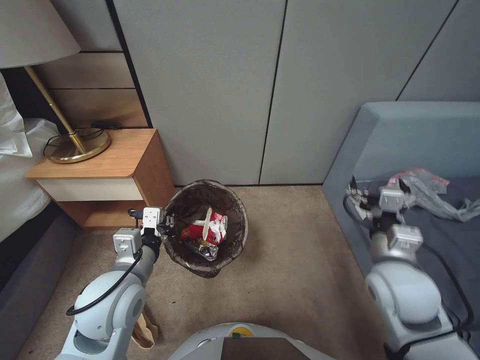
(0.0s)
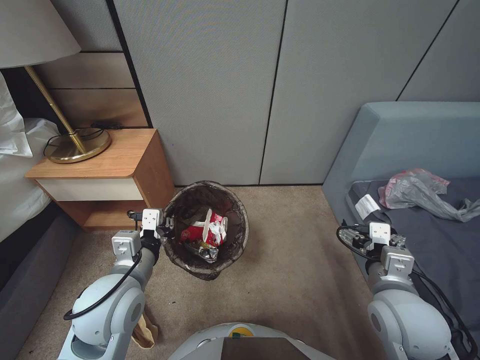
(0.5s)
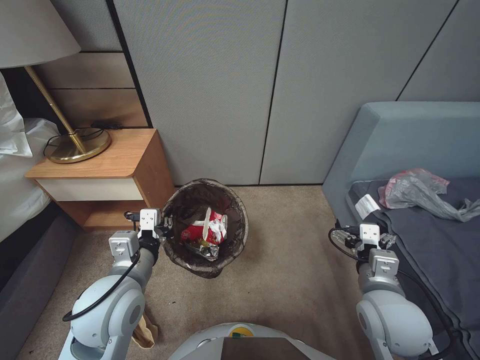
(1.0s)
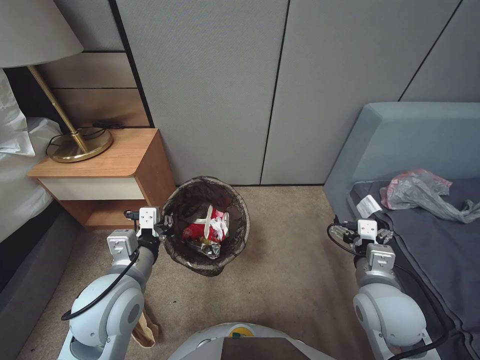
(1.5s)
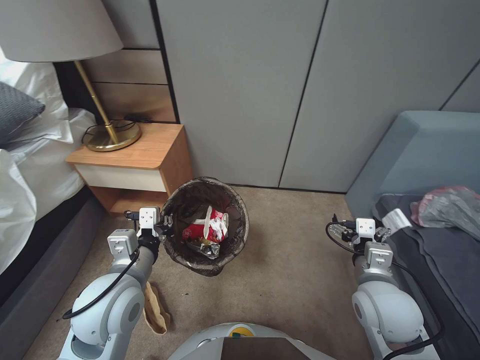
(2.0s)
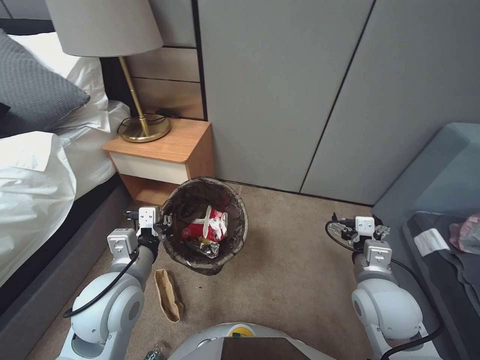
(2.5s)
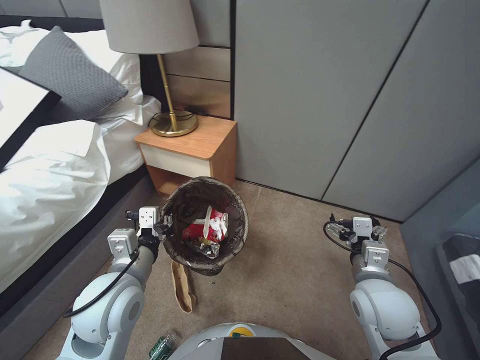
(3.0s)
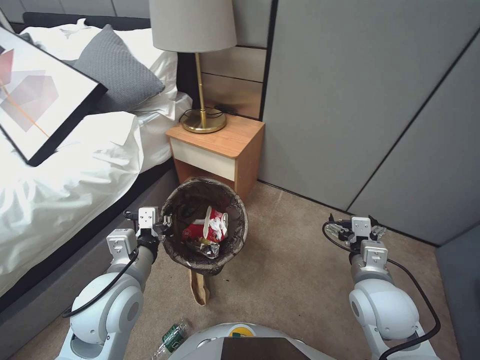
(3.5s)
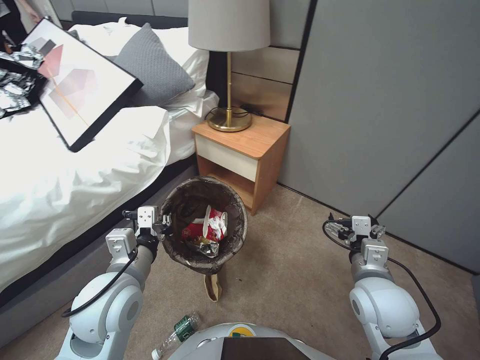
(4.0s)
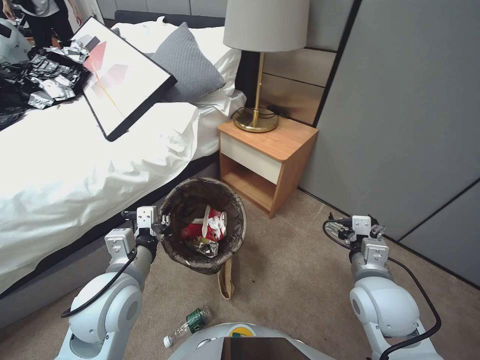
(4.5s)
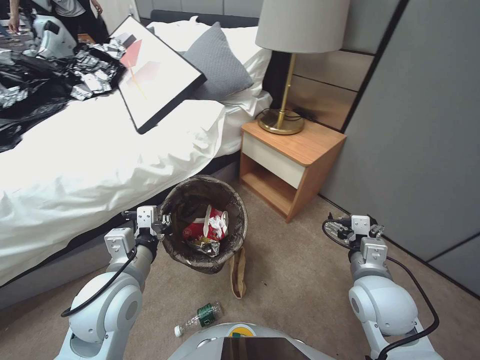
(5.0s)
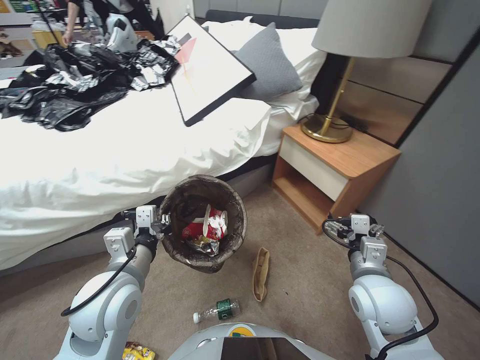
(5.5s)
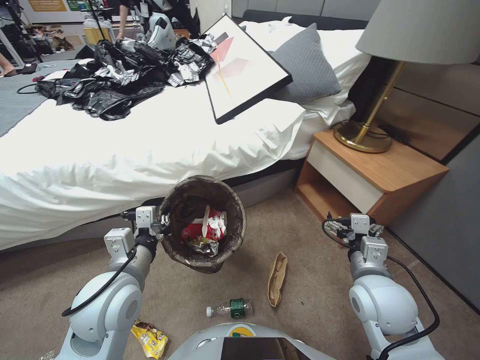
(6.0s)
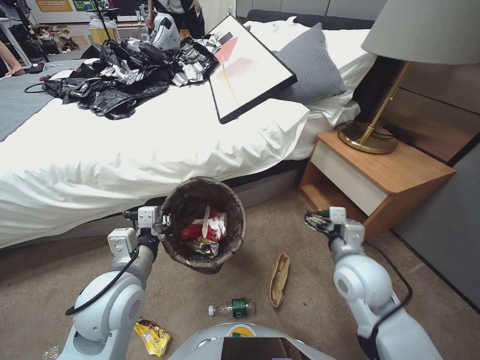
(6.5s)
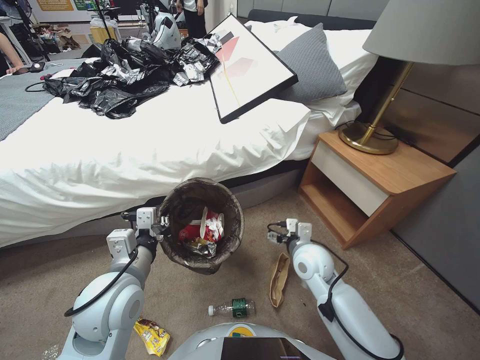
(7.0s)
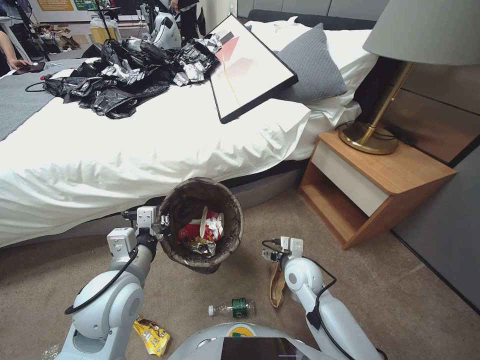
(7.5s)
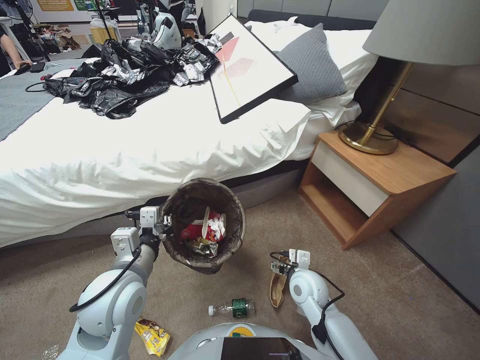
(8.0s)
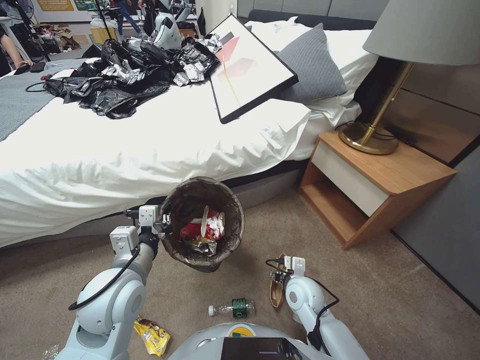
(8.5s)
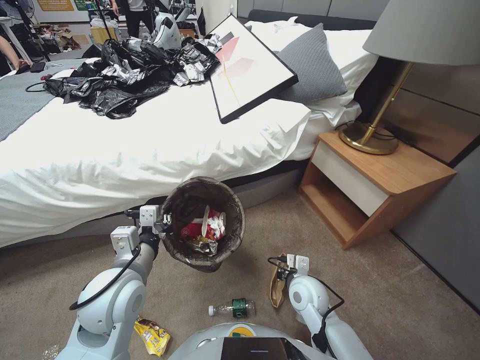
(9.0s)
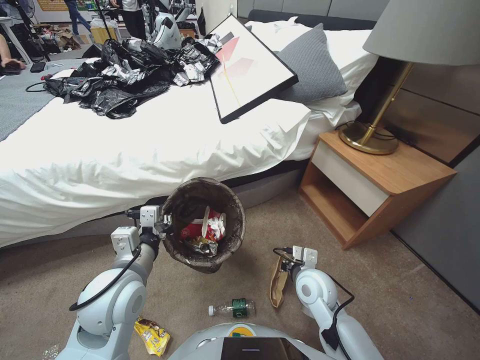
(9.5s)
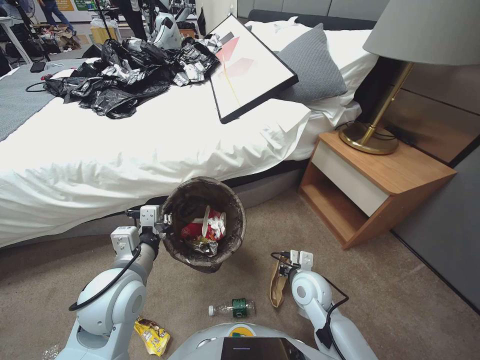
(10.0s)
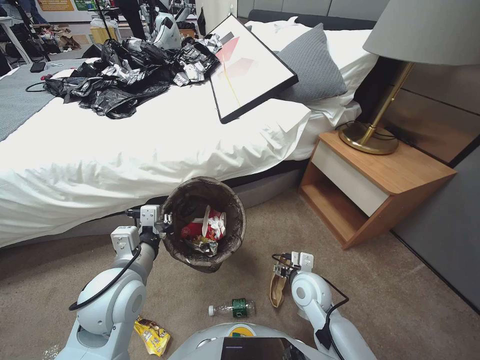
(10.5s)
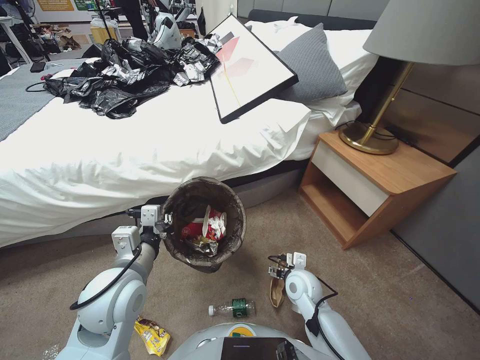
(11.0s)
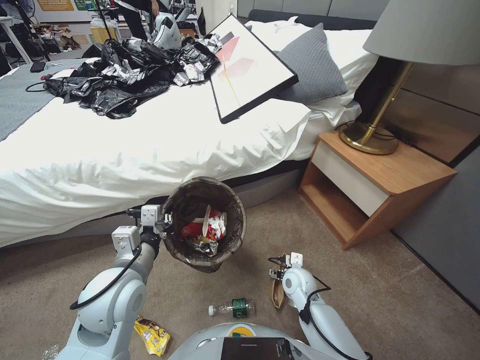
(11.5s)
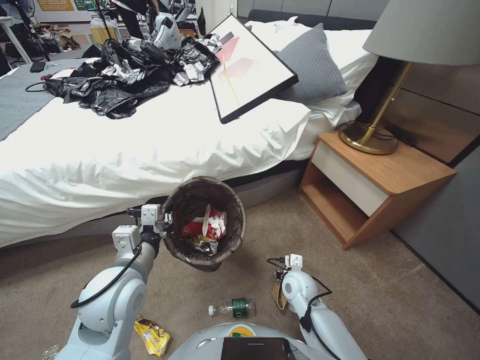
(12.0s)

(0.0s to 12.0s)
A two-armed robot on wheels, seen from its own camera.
Task of the whole recording: Pick up the trash bin, then pick up the garbage from the floor and place it into the trash bin.
0.0s - 2.0s: The right gripper shifts about 10 cm downward and backward.
6.0s - 8.0s: The right gripper travels downward, to the left and forward by roughly 20 cm.
8.0s - 10.0s: The right gripper closes its fingers.
10.0s - 12.0s: The right gripper travels downward by about 5 cm, and opens up.

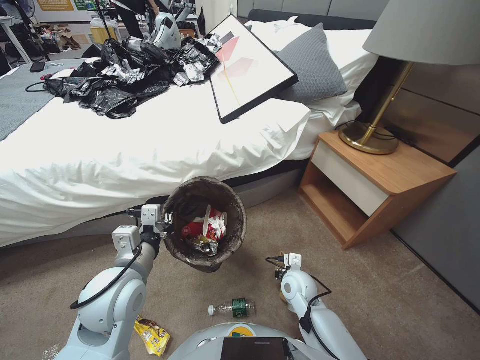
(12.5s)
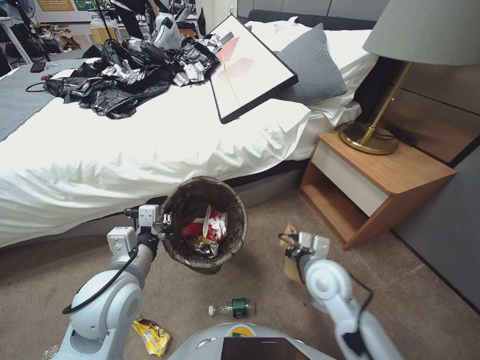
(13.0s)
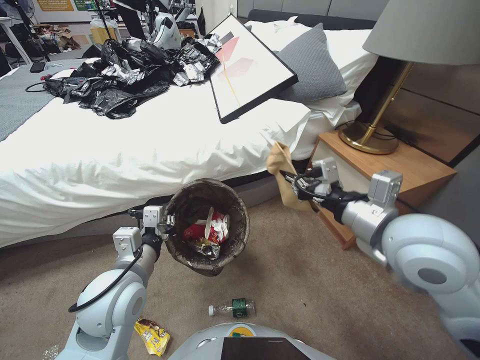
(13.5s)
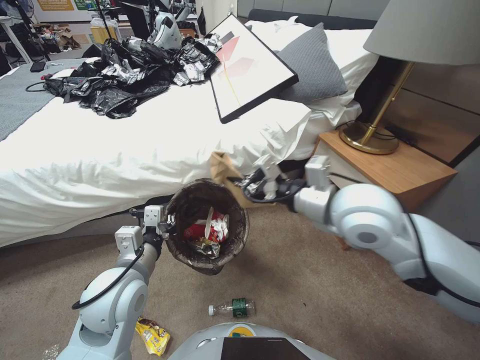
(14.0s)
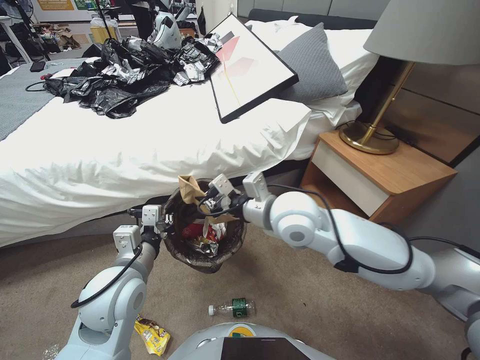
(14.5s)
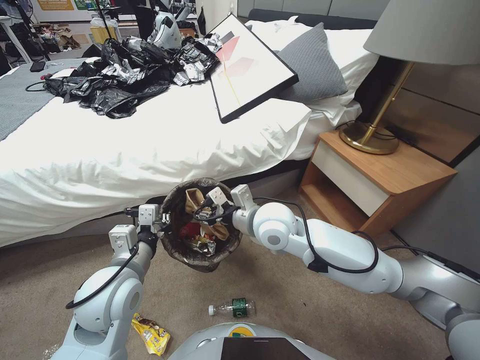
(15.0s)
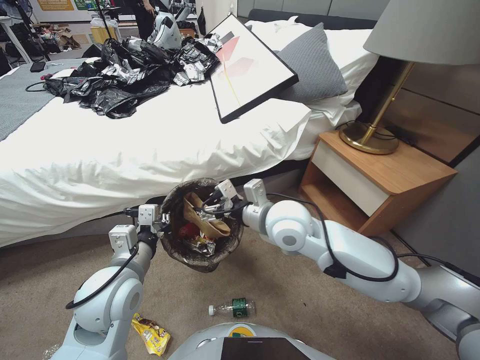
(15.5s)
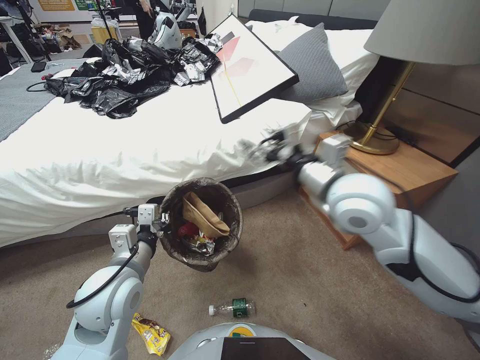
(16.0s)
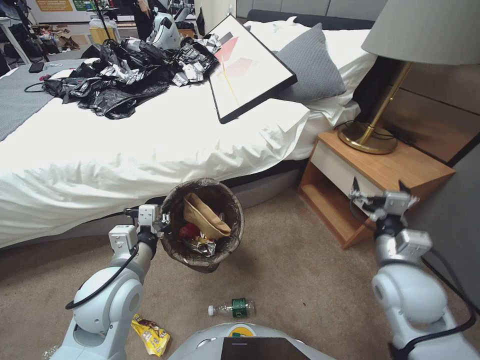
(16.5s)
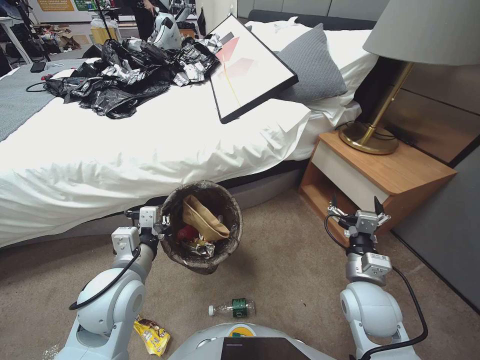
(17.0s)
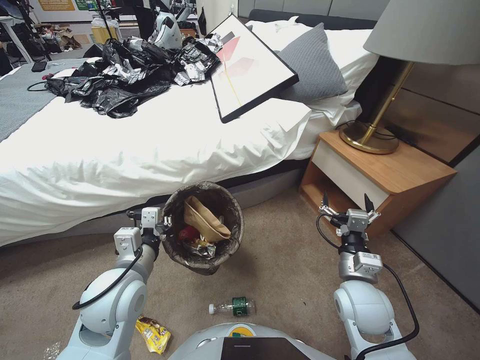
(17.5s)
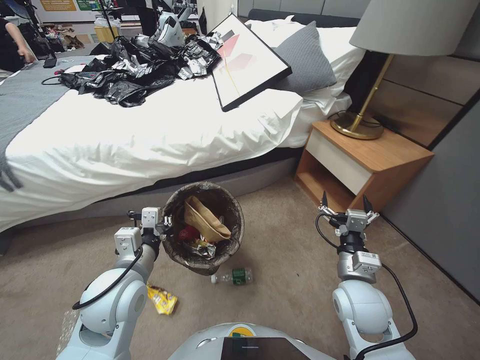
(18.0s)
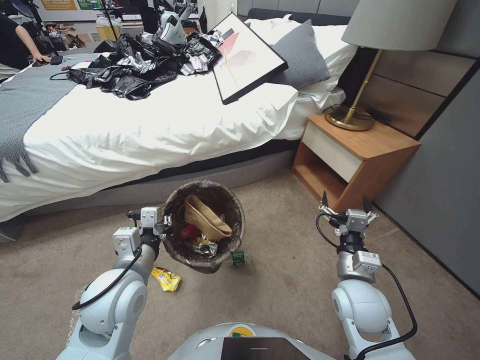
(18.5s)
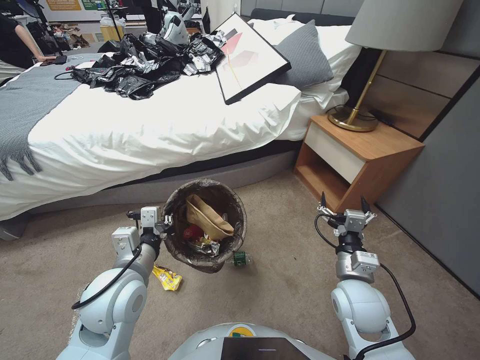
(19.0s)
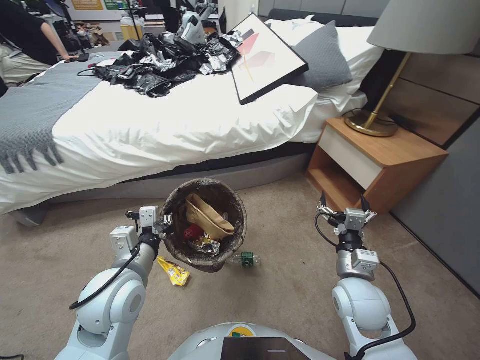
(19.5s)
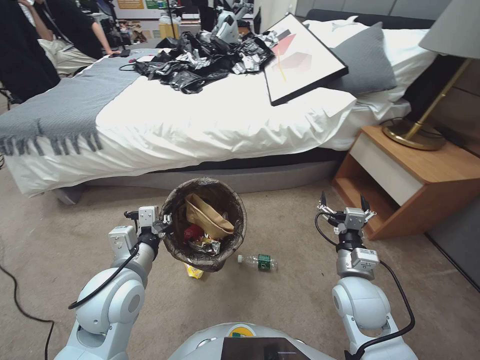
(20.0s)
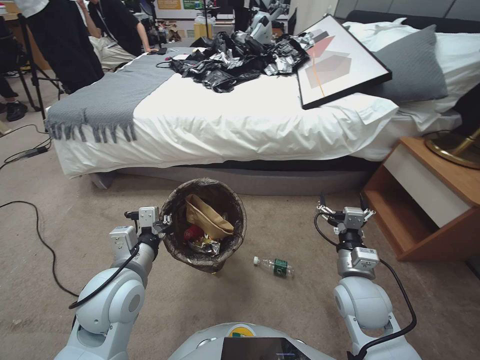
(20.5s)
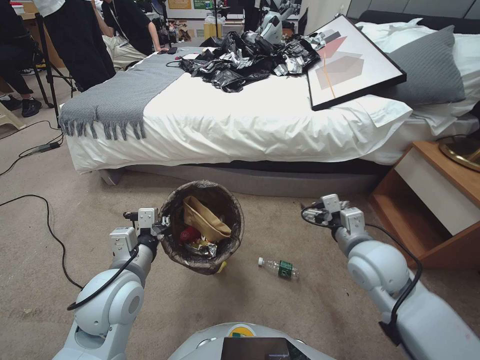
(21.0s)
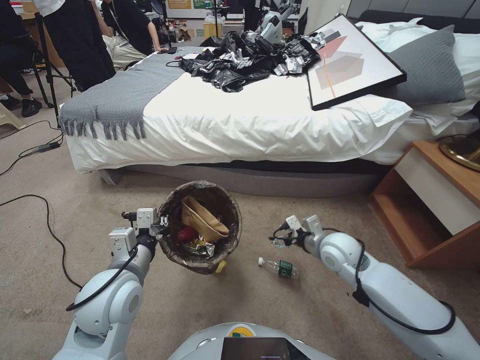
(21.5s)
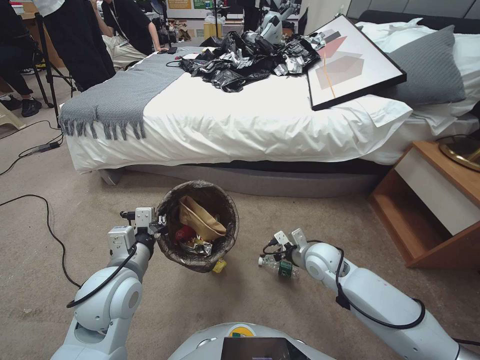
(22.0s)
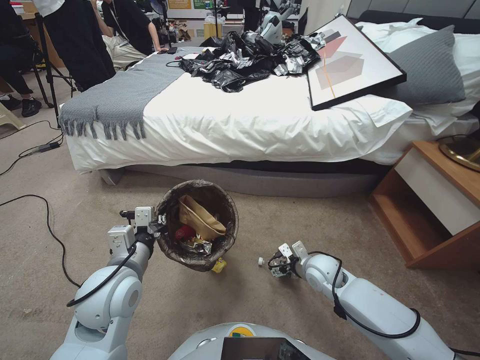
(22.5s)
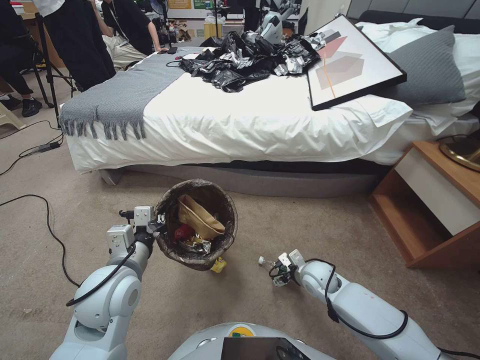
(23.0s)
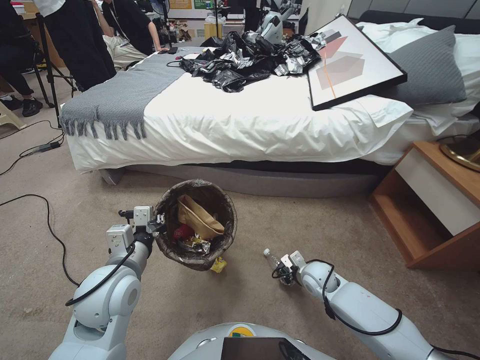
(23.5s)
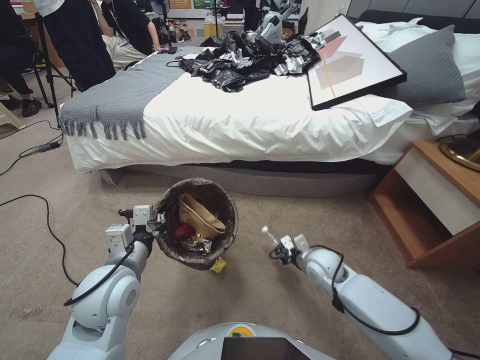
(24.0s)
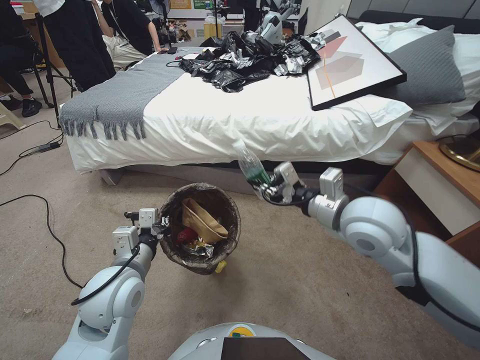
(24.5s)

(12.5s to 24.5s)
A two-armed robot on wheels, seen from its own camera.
Task of the whole recording: Pick up the trash bin, then pick up the garbage from the floor and place it into the trash bin.
12.5s - 14.5s: The right gripper shifts roughly 30 cm upward.
14.5s - 16.5s: The right gripper moves to the right, some 20 cm, and opens its fingers.
16.5s - 18.5s: The right gripper goes some 15 cm downward and to the left.
20.5s - 22.5s: The right gripper travels downward and forward by about 15 cm.
22.5s - 24.5s: The right gripper goes about 25 cm upward, and closes.

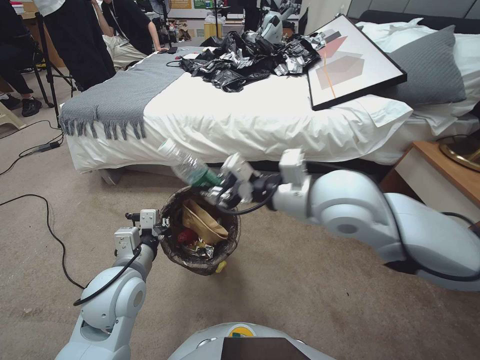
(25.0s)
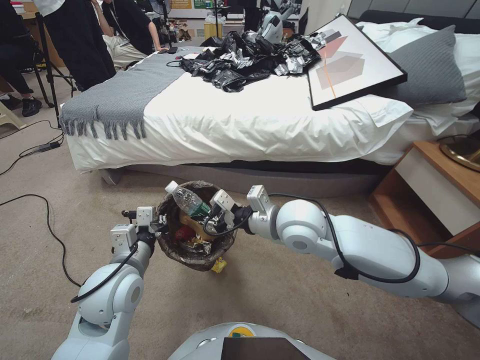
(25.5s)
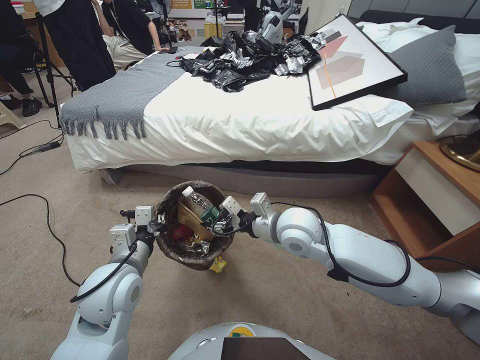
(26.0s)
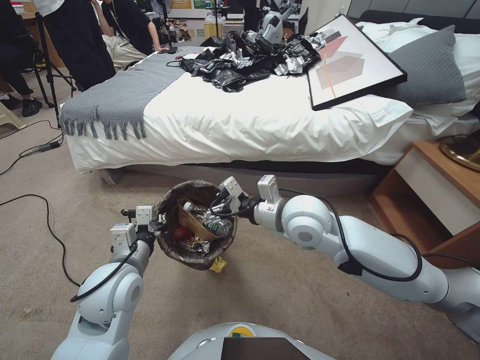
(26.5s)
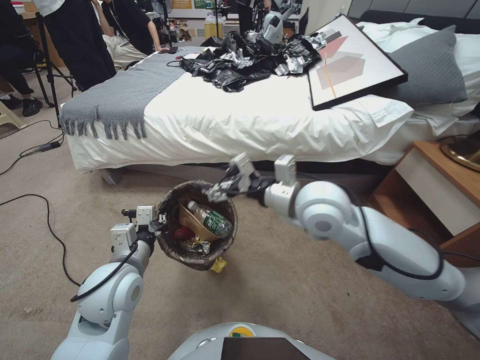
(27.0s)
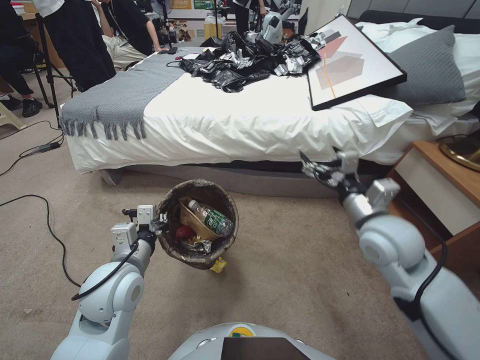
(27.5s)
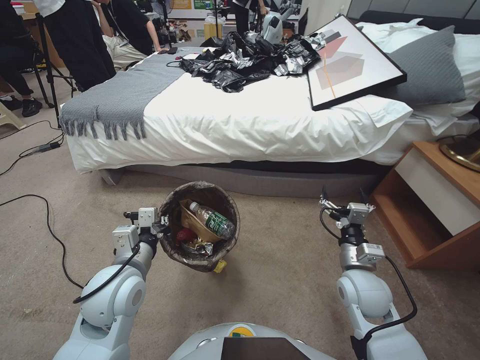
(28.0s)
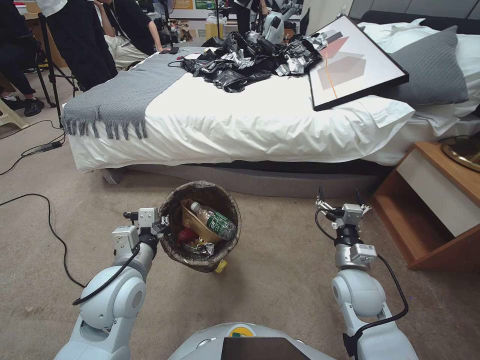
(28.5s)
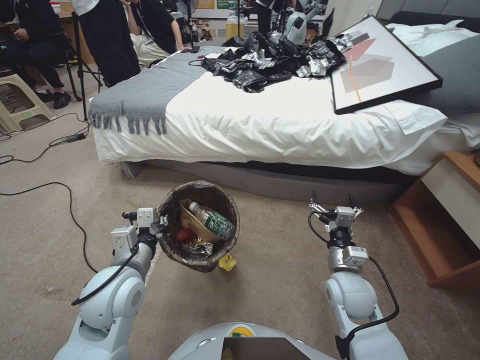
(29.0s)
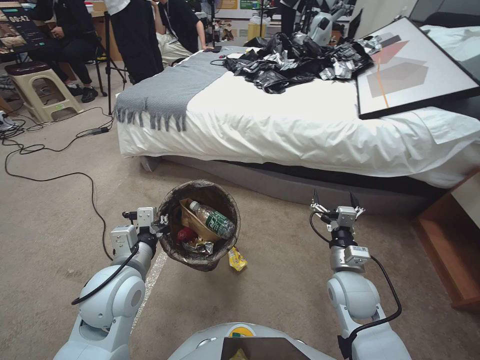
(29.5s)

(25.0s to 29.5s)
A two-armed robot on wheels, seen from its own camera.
Task of the whole recording: Pick up the trash bin, then pick up the garbage from the floor and place it into the trash bin.
25.0s - 27.0s: The right gripper shifts some 5 cm downward, and opens up.
27.0s - 29.5s: The right gripper goes about 25 cm downward and to the right.
